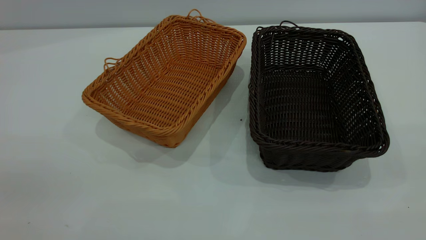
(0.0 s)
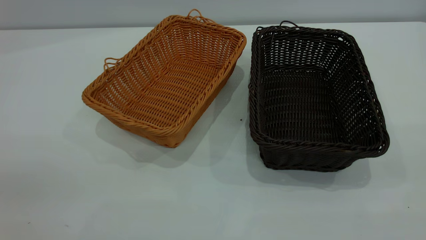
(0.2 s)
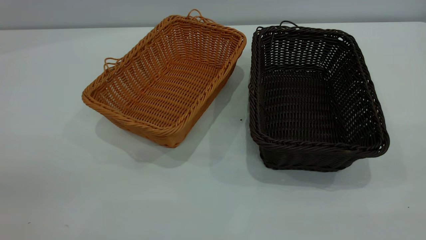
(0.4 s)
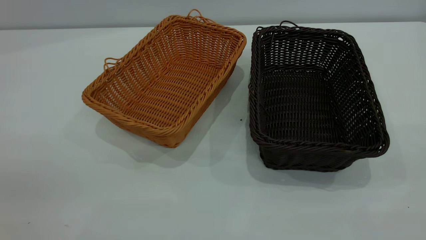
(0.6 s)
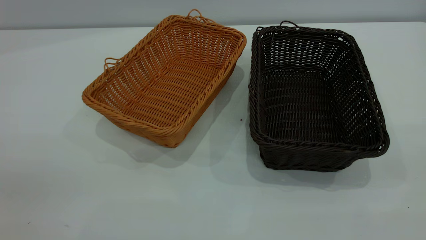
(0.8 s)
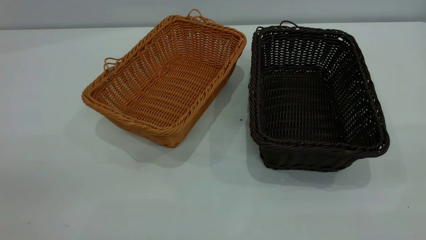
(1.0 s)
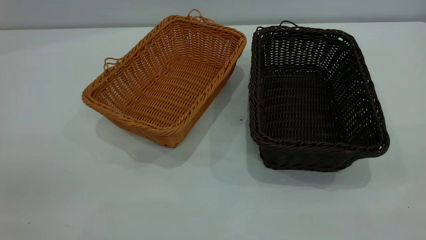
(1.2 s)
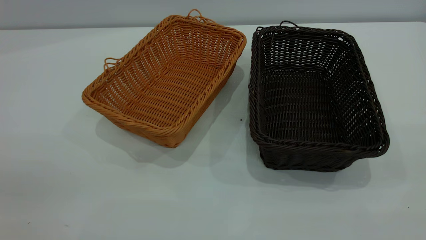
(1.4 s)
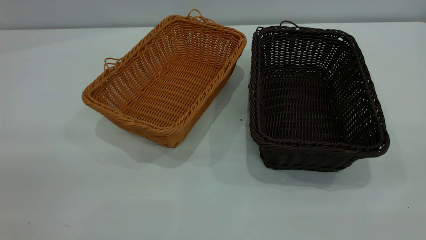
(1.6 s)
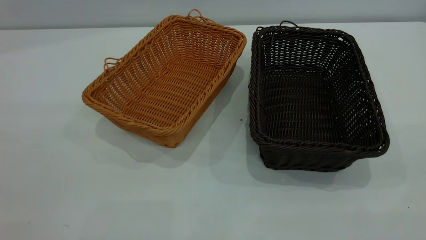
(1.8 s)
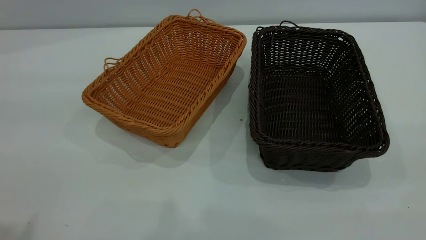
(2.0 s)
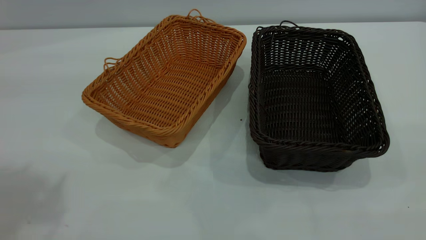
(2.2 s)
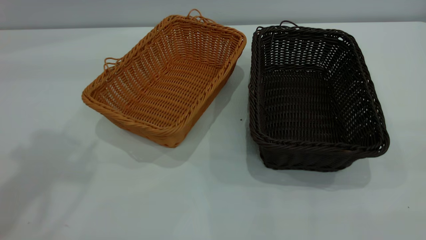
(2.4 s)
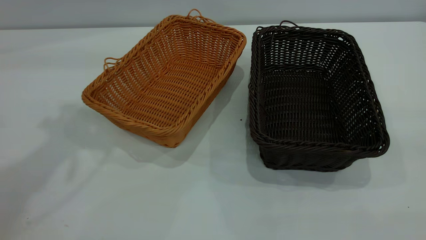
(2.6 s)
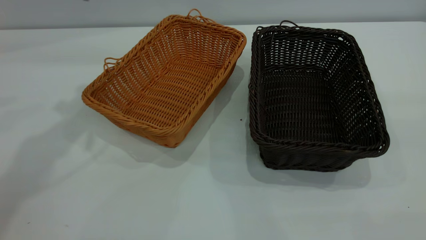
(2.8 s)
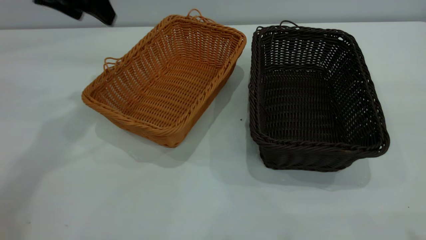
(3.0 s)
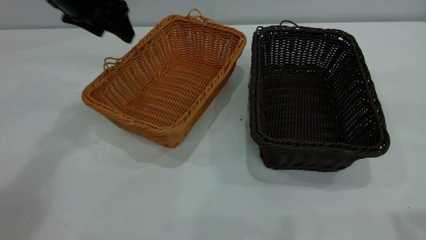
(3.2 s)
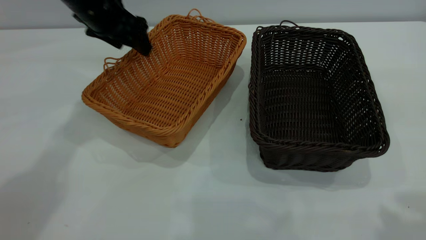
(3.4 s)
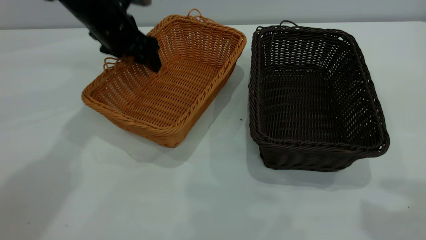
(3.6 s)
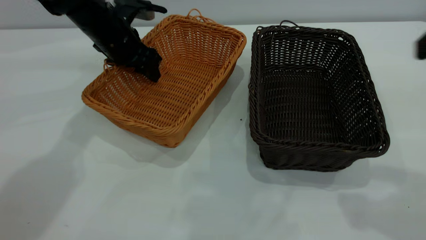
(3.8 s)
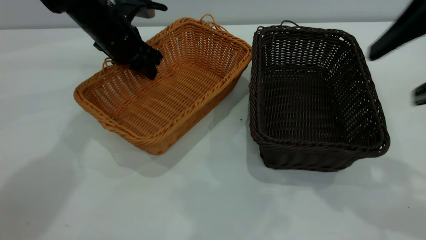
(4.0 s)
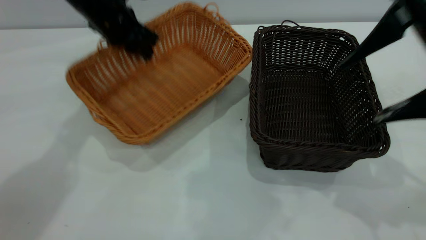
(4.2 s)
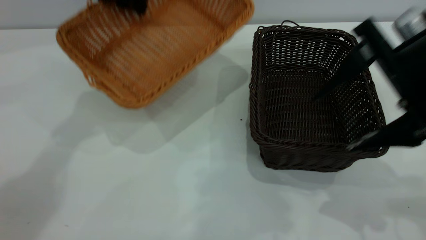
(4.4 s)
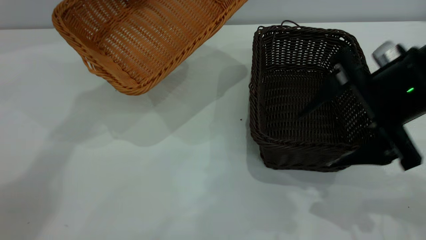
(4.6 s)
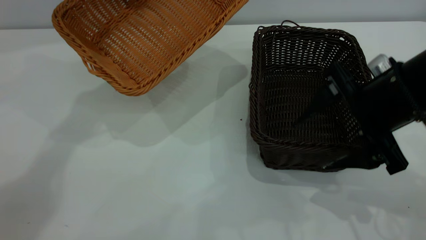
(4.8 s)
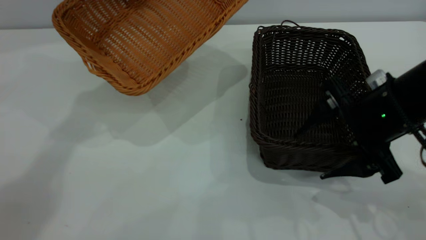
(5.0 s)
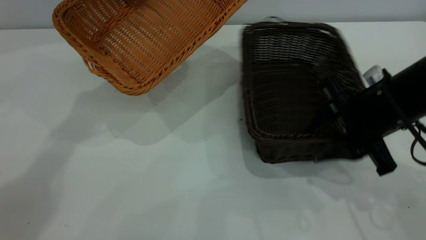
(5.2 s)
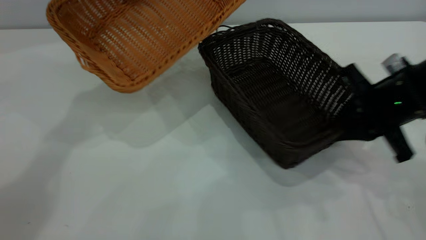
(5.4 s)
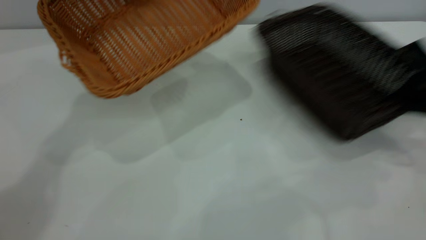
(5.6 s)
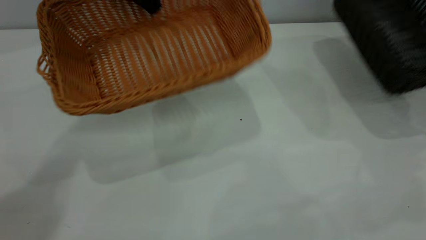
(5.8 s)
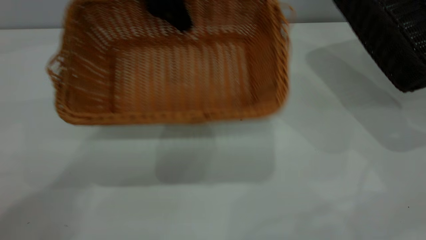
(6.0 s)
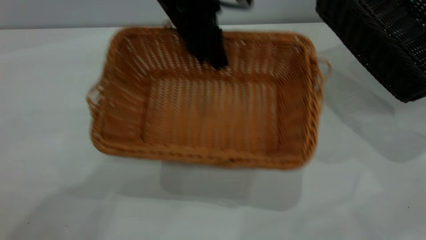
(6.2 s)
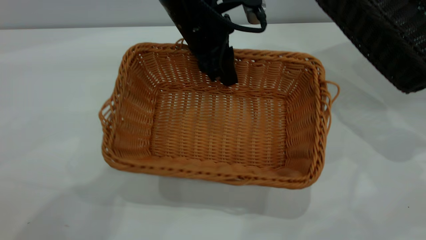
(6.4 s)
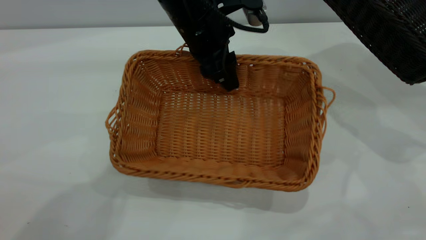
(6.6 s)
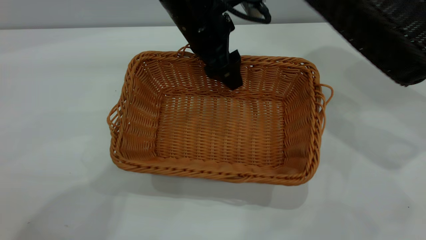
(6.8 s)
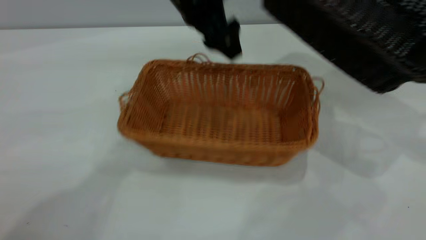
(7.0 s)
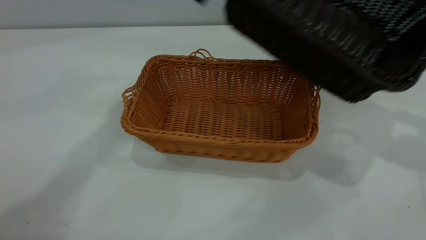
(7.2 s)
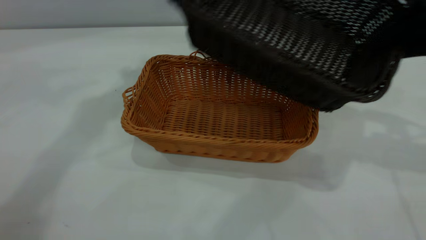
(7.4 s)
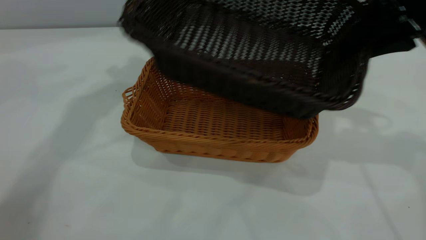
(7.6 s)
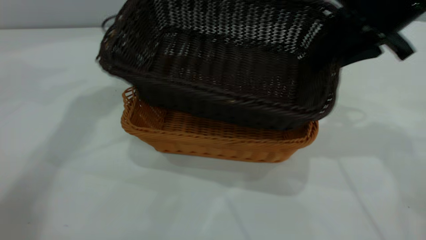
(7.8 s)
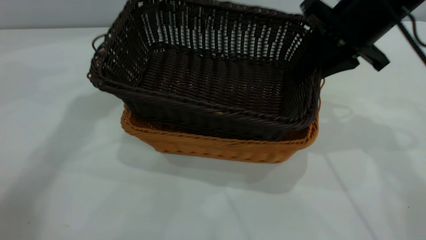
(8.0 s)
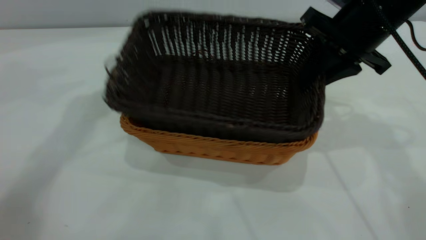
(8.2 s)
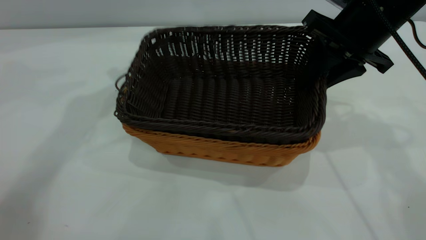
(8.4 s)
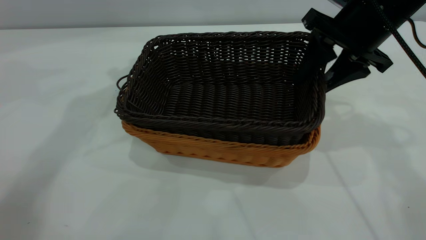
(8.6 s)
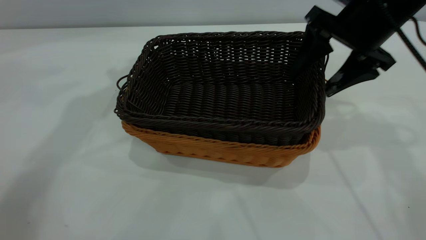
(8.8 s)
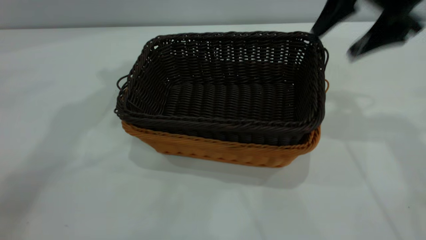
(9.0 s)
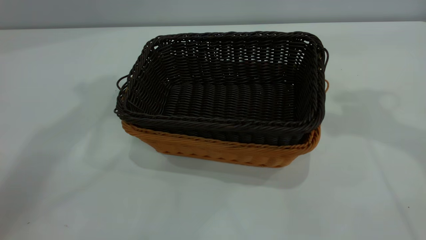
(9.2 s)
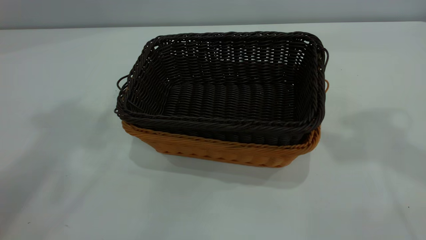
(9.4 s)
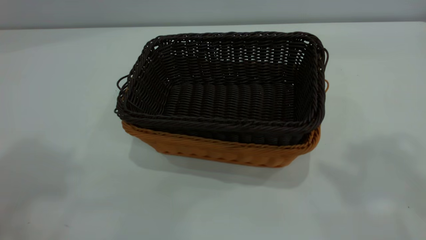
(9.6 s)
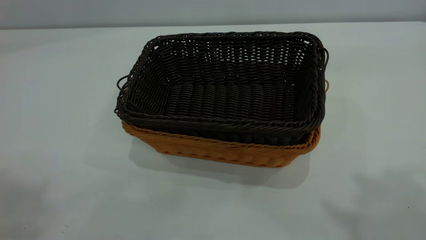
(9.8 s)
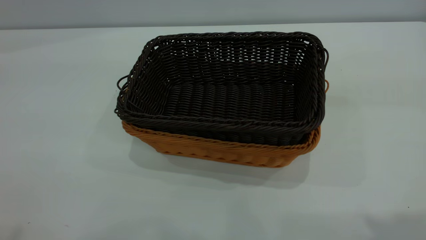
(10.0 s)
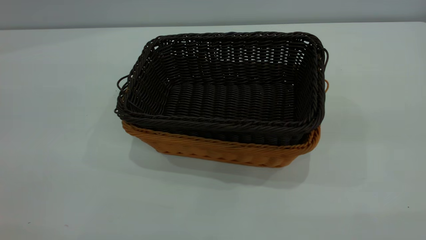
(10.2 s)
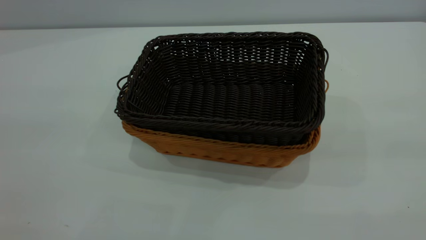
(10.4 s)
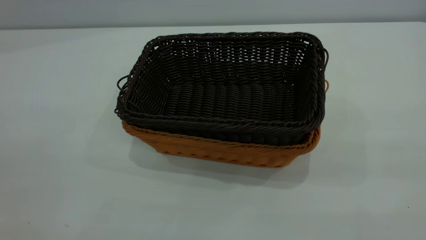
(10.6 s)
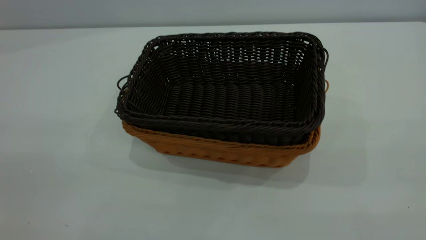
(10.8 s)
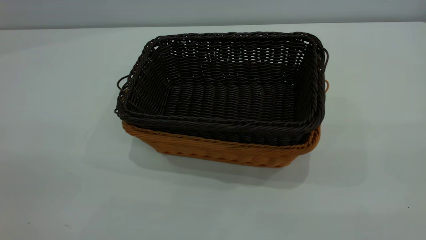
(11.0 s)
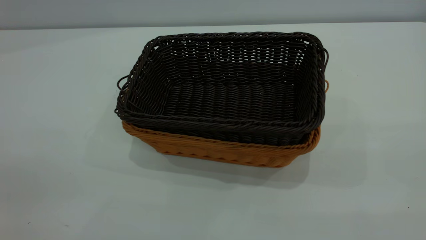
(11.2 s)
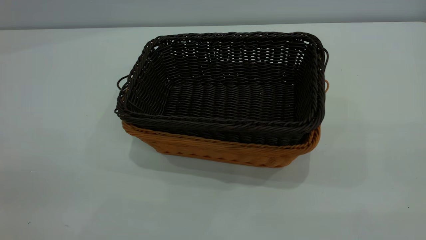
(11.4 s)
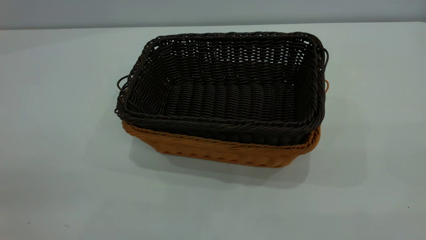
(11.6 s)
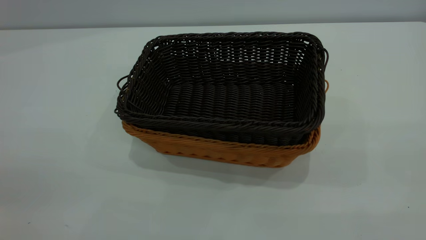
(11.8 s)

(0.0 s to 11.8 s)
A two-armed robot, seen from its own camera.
Task of the whole recording: the left gripper grasp the brown basket and place it in the center of the table, the right gripper grasp the black basket and place it inside the brown one.
Step, 0.0 s - 5.8 s: Pick up the light basket with the right gripper.
Step, 6.0 s - 6.8 s: Place the light-colored basket in the center.
Step, 7.2 s - 9.0 s: Place the dark basket on top of the light basket.
0.0 s - 1.4 s: The two grippers keep their place.
1.4 s - 3.0 s: The left gripper moves forward, roughly 40 cm.
3.0 s - 4.4 s: The right gripper travels downward and forward by about 25 cm; the left gripper goes about 5 cm forward, goes downward and returns, roughly 15 cm each way, and closes.
4.4 s - 6.0 s: The left gripper is displaced to the right and backward by about 10 cm; the right gripper goes approximately 20 cm to the right, and closes.
6.0 s - 7.4 s: The left gripper is displaced upward and to the left by approximately 10 cm, and opens. The right gripper shifts about 15 cm to the left.
7.4 s - 8.8 s: The right gripper is displaced to the left by approximately 5 cm, and opens up.
8.8 s - 10.4 s: The left gripper is displaced backward by about 40 cm, while the right gripper travels backward and upward by some 35 cm.

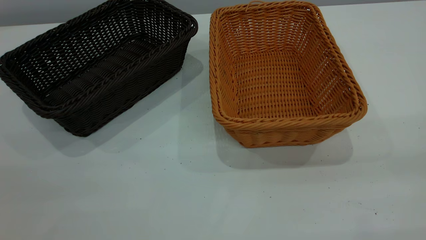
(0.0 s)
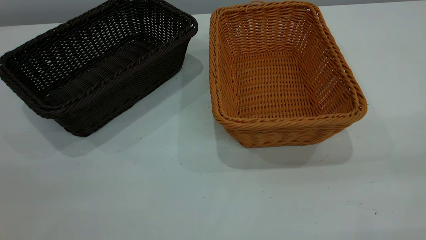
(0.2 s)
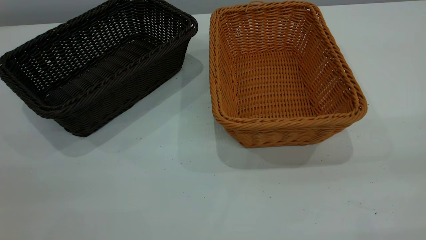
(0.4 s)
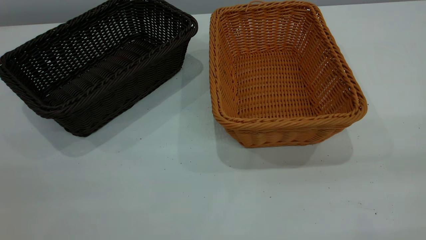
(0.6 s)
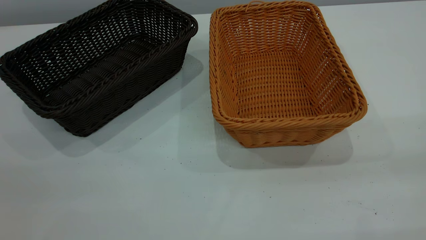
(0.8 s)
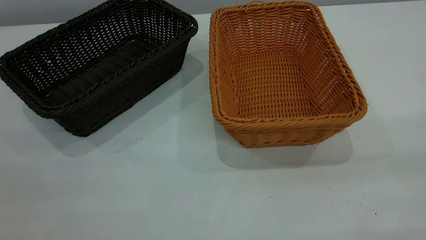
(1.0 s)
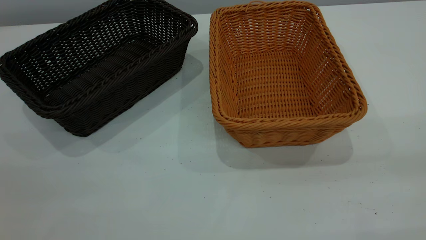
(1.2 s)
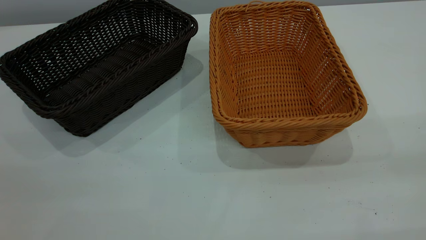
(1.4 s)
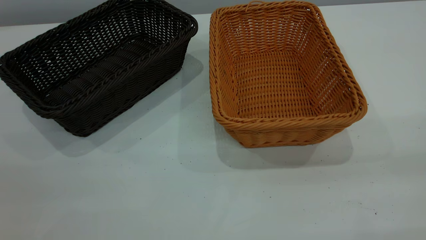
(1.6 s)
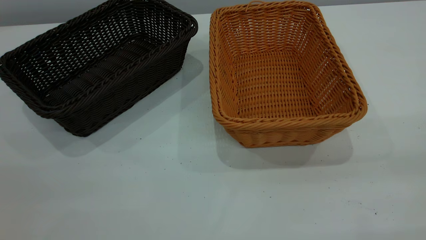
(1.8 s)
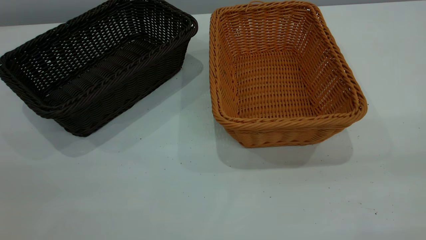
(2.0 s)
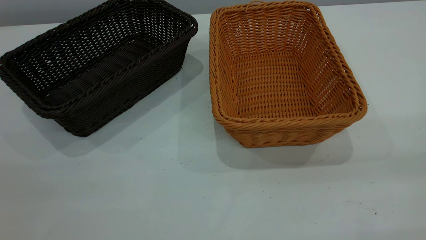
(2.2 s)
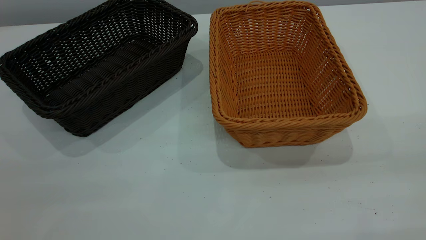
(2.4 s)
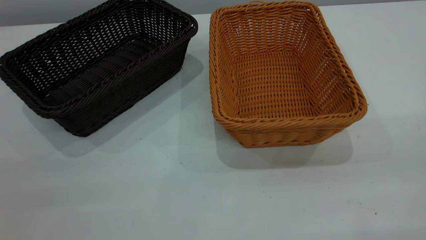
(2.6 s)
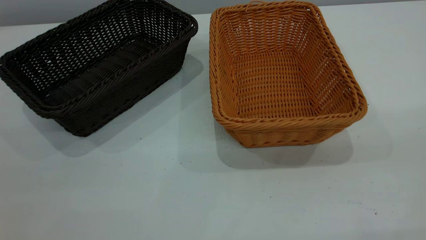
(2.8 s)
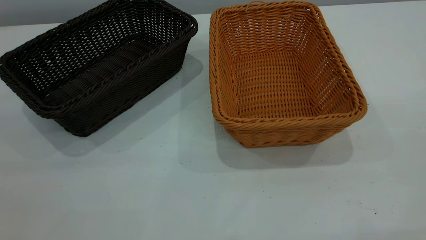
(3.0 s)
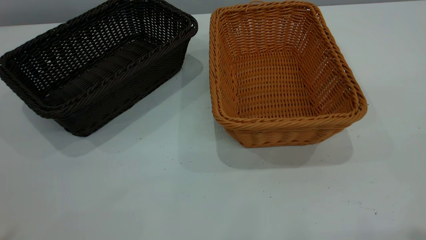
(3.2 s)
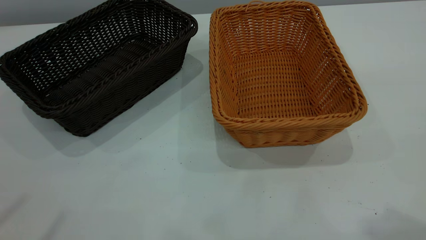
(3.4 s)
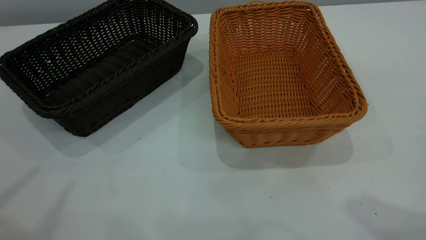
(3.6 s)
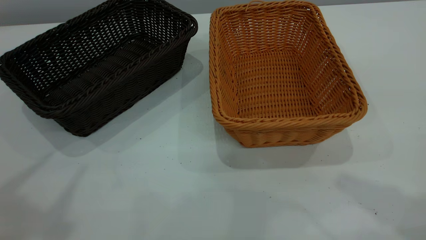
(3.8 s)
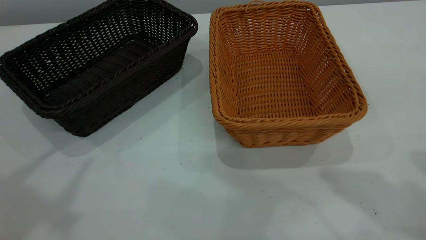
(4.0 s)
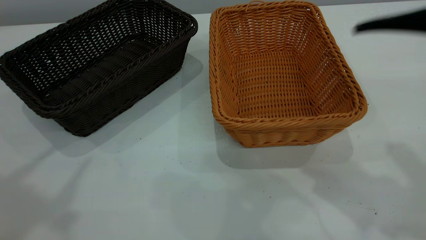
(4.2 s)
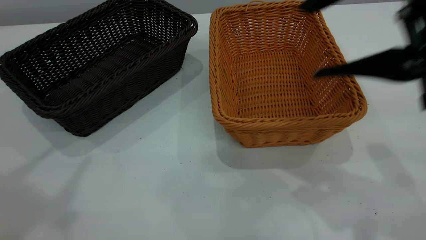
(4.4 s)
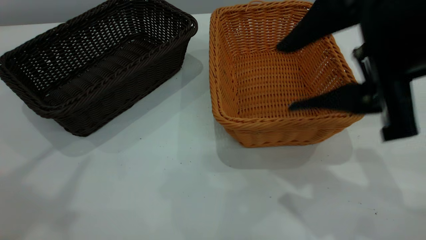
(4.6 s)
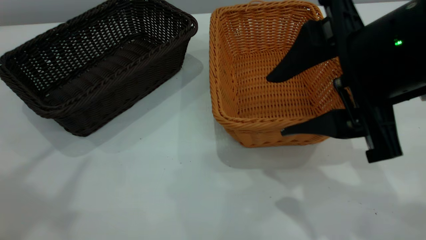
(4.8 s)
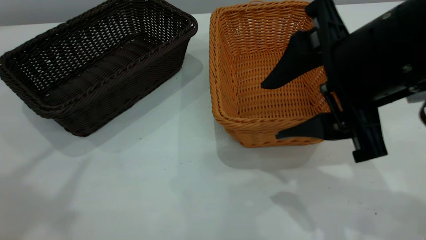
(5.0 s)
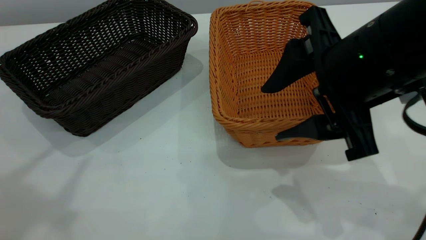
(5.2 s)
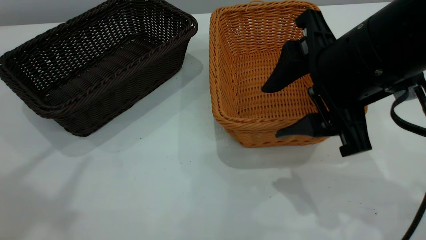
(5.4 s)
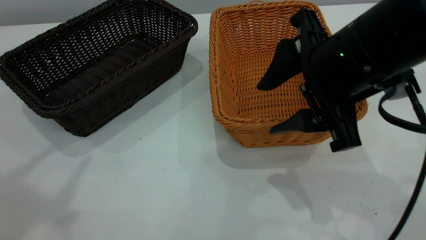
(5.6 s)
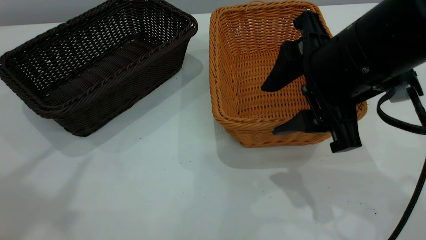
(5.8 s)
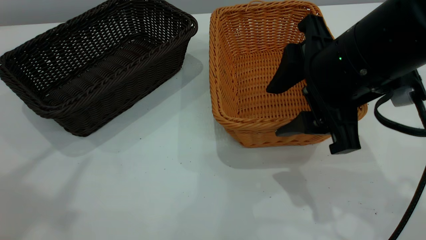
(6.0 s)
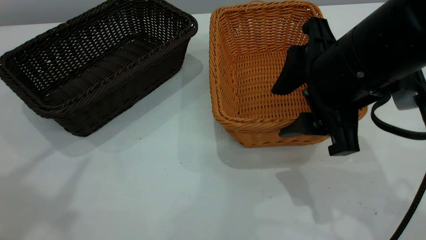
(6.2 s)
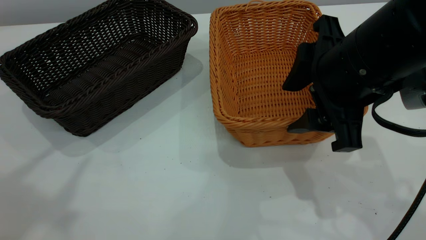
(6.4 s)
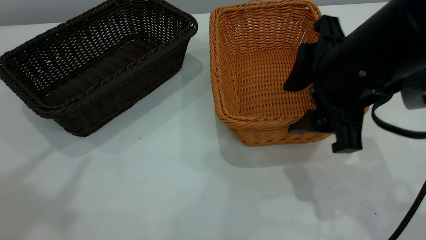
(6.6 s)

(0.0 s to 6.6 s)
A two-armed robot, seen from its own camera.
Task of the whole recording: the left gripper grasp the black basket and place it in the center of the table, the right gripper grasp the brown basket and place it inside the black one.
0.0 s - 1.6 s: Neither gripper changes place.
3.2 s - 5.0 s: The right gripper heads downward, forward and to the left, covering about 25 cm. The left gripper moves forward, roughly 10 cm.
